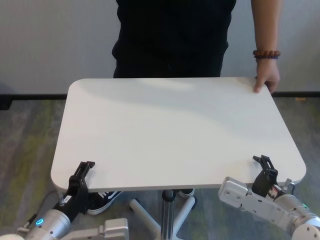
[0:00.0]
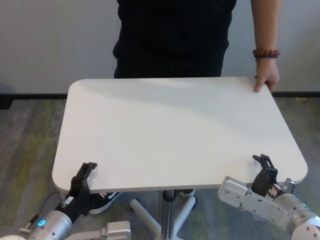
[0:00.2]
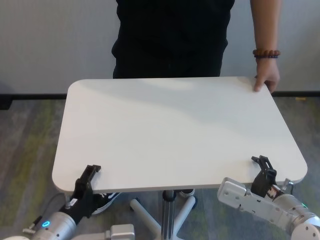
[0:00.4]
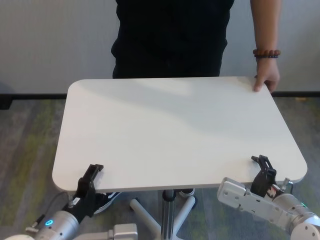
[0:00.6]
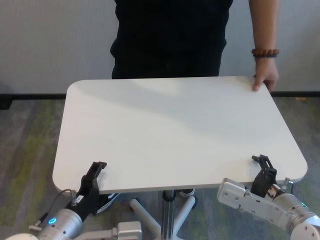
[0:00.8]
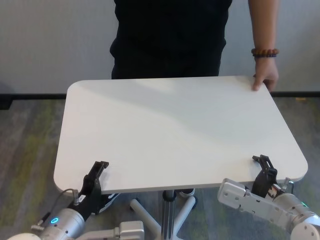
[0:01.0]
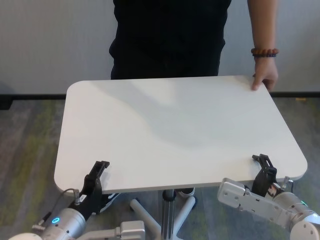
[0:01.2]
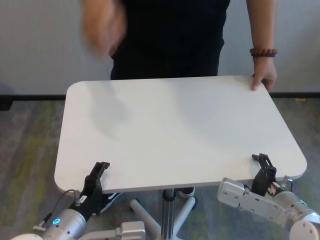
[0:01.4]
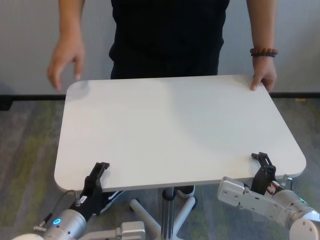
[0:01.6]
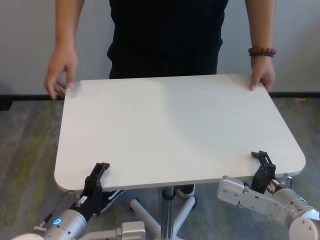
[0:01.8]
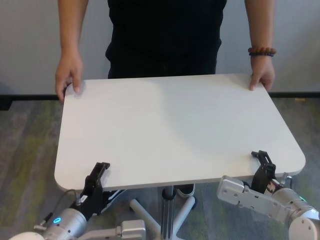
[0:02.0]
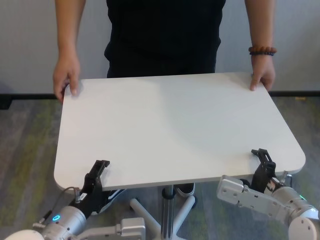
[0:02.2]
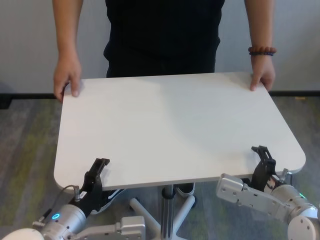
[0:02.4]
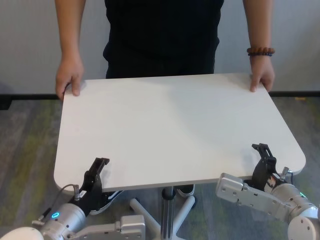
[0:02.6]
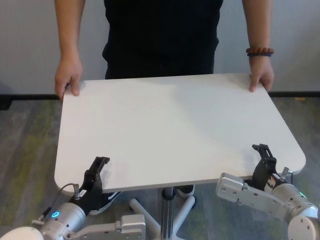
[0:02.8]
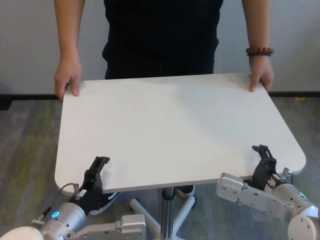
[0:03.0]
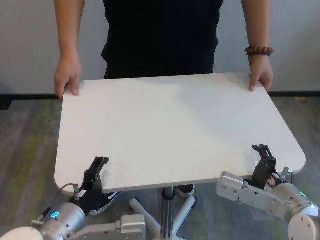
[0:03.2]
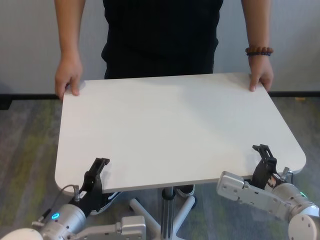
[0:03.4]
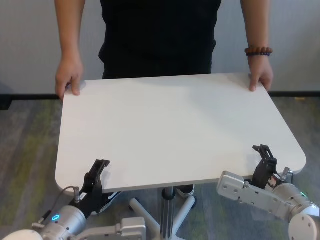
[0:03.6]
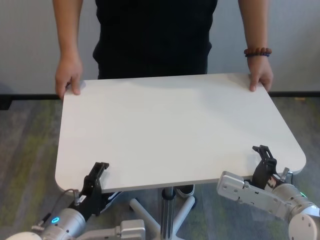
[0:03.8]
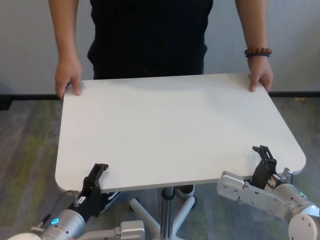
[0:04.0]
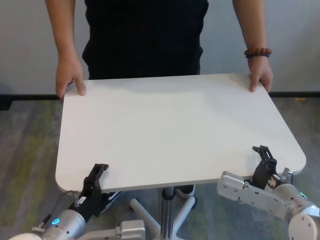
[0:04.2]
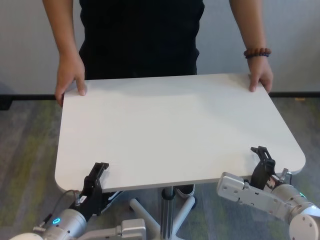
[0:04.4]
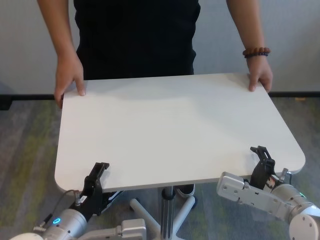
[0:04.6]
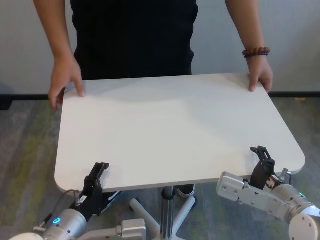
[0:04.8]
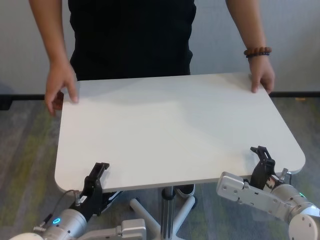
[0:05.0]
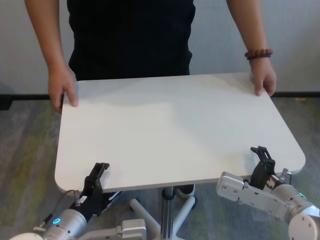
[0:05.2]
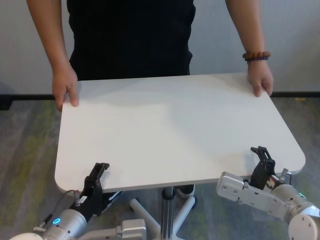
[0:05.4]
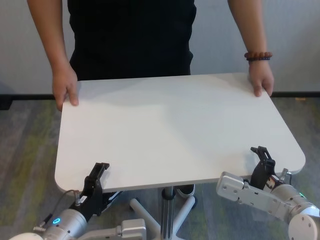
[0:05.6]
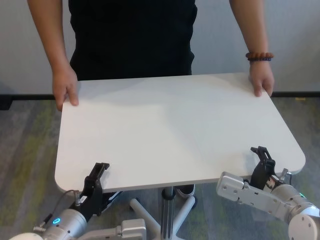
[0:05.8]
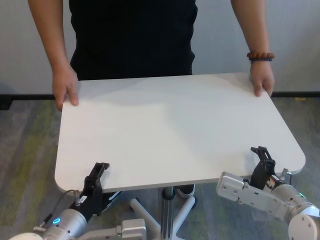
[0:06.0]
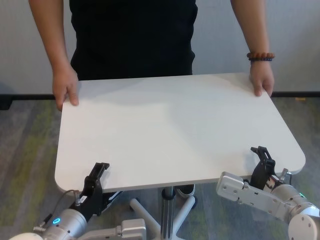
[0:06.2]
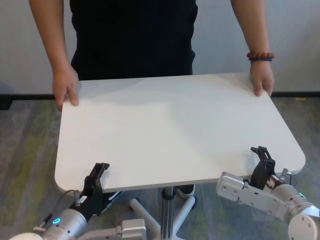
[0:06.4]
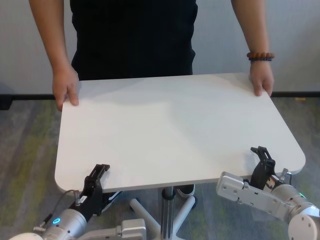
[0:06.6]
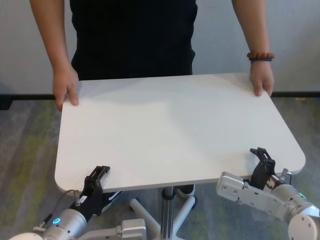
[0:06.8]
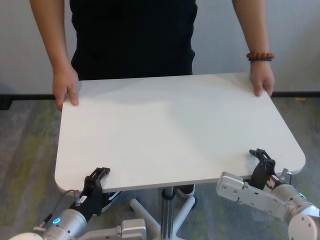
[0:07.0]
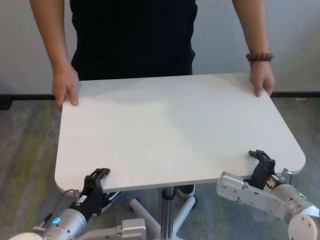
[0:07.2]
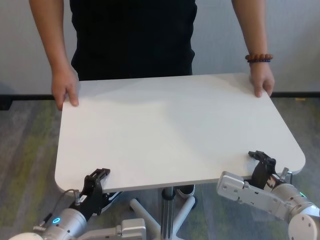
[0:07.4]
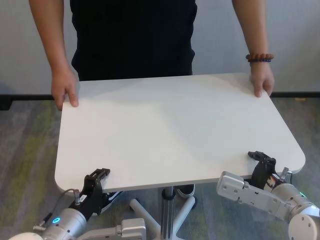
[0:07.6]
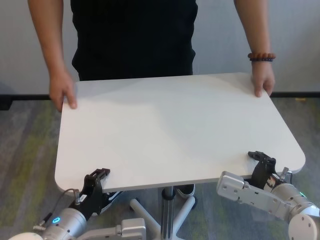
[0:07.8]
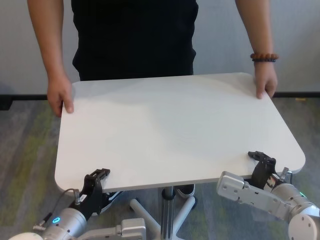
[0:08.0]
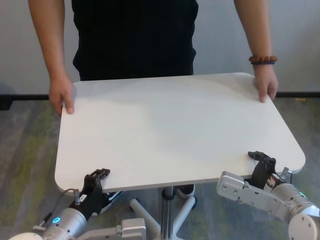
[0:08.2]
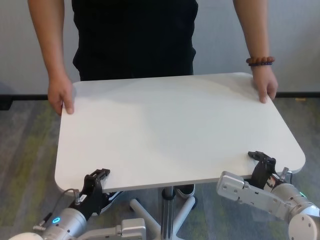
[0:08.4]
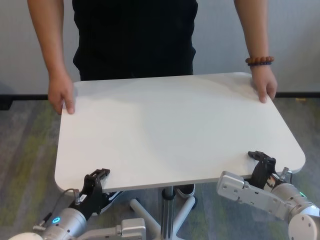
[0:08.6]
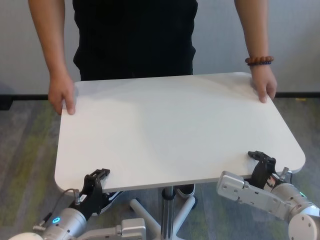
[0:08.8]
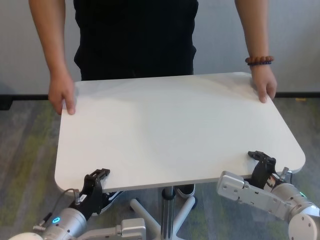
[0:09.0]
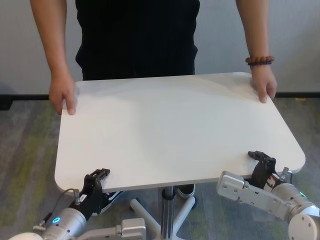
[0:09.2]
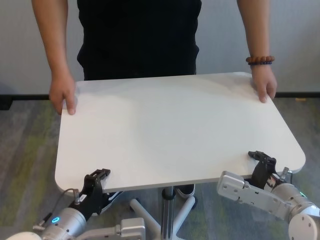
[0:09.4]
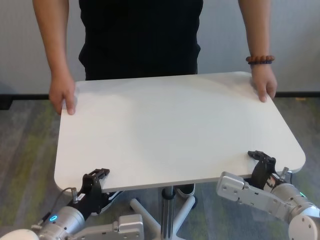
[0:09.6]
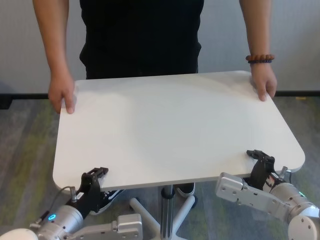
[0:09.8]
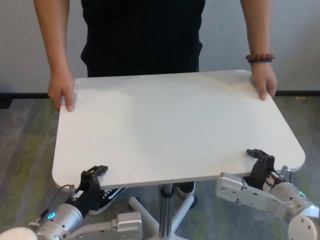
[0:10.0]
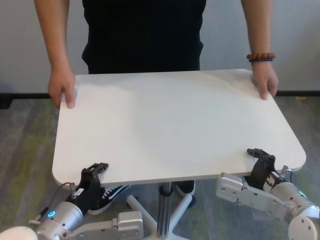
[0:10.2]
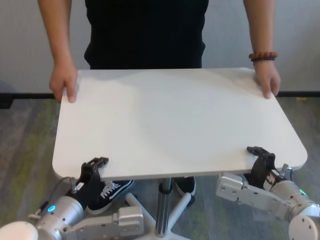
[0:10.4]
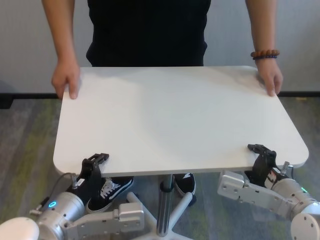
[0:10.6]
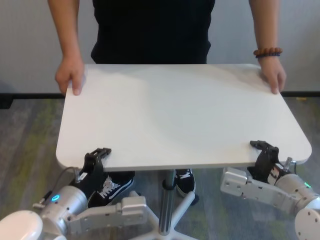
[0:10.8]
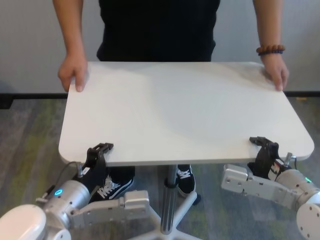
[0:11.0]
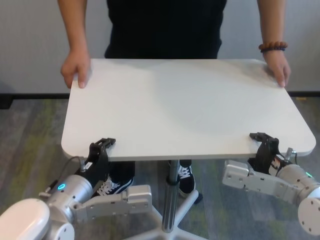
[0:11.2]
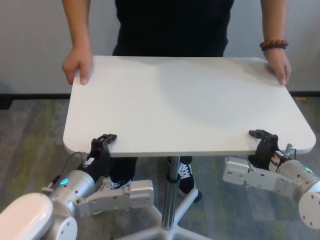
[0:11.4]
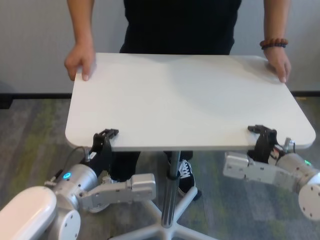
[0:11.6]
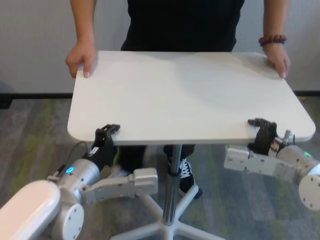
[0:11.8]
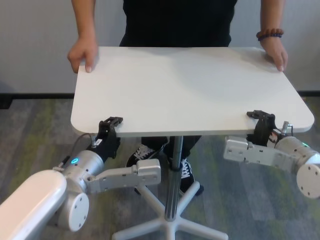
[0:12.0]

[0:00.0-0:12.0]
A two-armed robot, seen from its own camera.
Task of the whole recording: human machine collaborative table moving.
Step, 0:00.0 to 0:07.6: Grasp the table with both grippers.

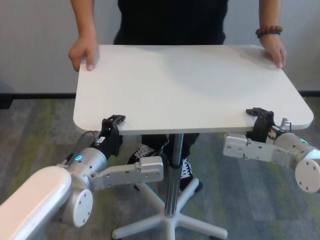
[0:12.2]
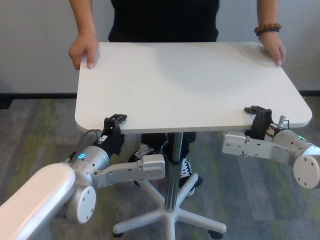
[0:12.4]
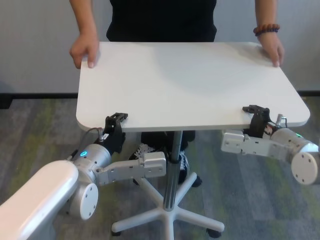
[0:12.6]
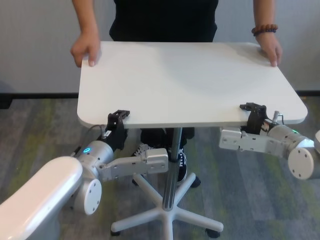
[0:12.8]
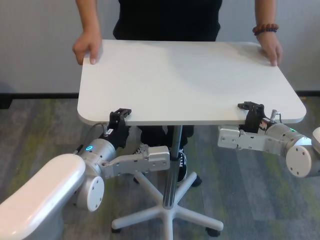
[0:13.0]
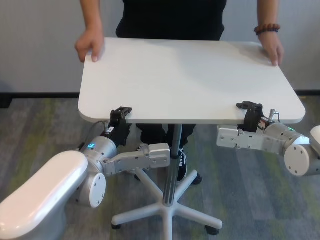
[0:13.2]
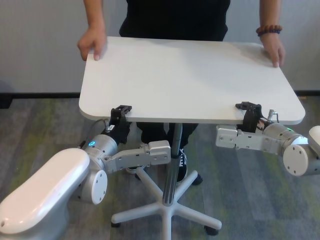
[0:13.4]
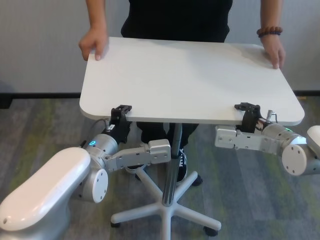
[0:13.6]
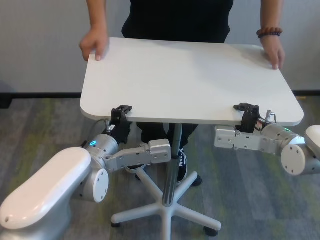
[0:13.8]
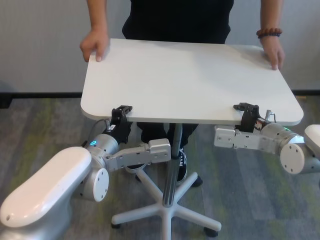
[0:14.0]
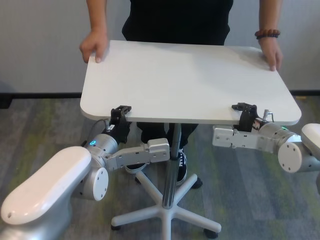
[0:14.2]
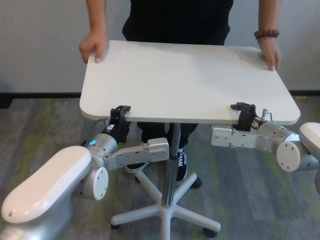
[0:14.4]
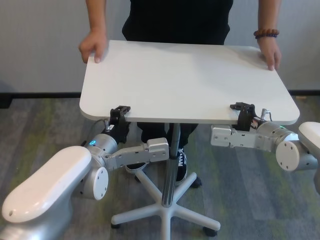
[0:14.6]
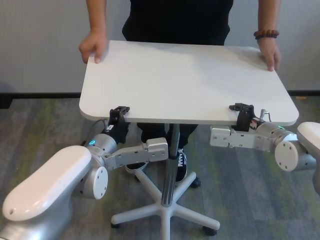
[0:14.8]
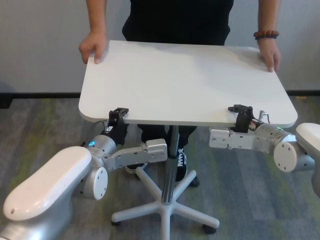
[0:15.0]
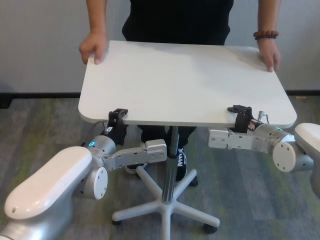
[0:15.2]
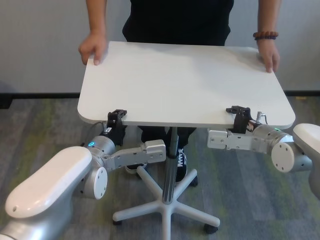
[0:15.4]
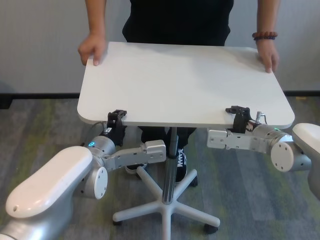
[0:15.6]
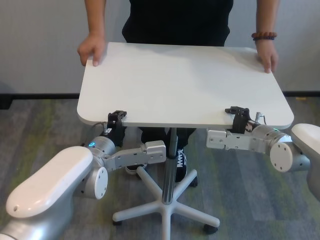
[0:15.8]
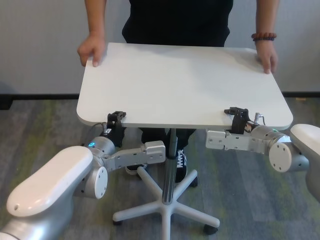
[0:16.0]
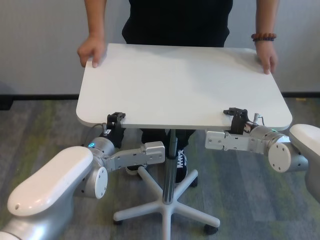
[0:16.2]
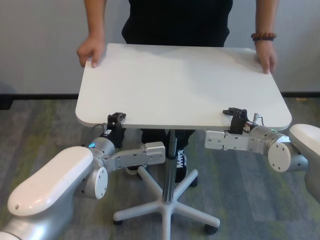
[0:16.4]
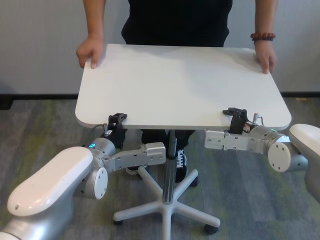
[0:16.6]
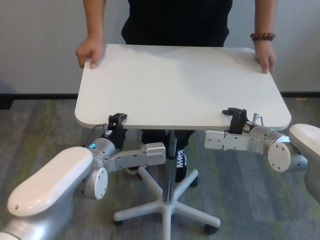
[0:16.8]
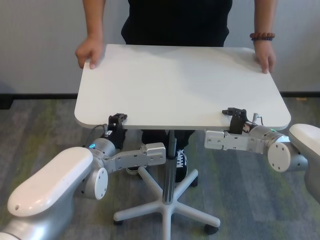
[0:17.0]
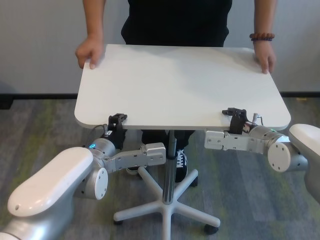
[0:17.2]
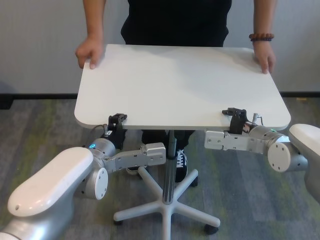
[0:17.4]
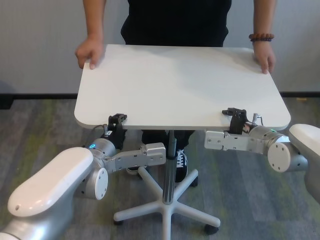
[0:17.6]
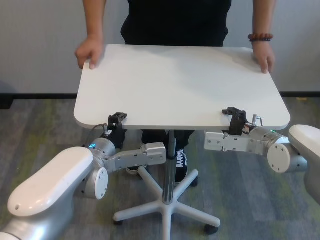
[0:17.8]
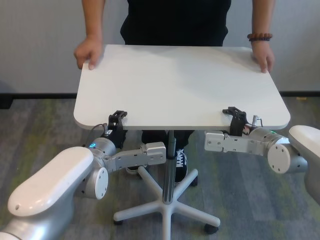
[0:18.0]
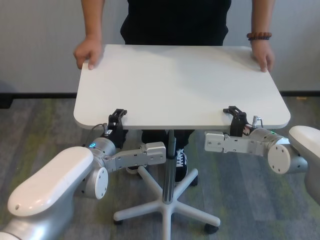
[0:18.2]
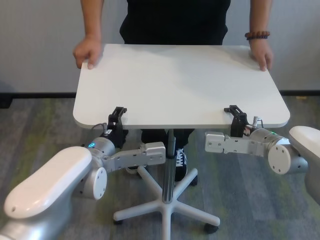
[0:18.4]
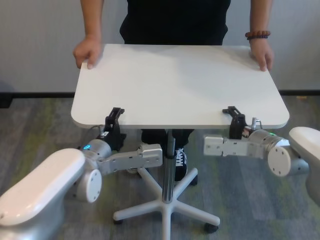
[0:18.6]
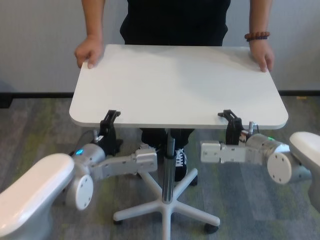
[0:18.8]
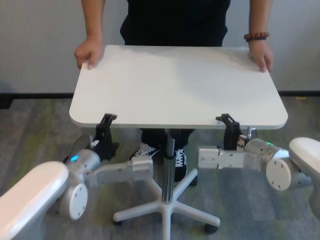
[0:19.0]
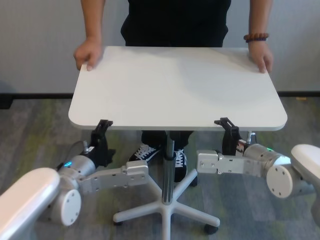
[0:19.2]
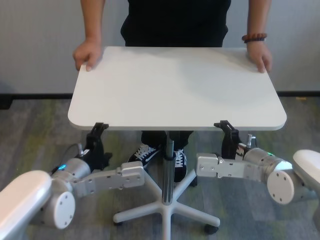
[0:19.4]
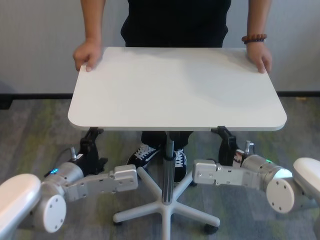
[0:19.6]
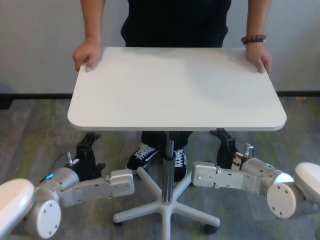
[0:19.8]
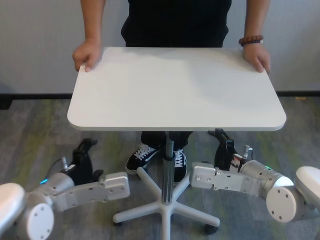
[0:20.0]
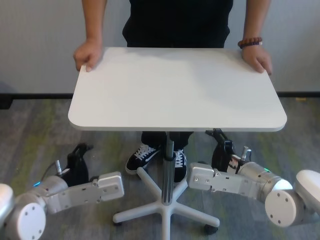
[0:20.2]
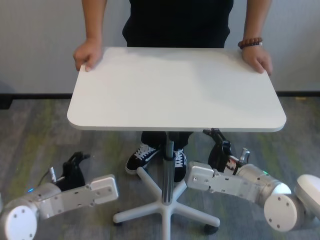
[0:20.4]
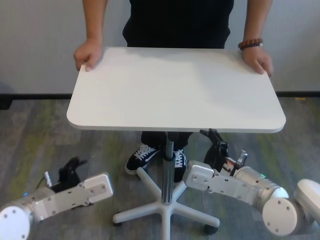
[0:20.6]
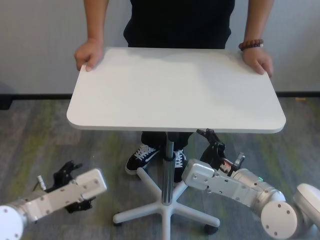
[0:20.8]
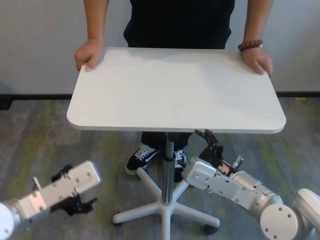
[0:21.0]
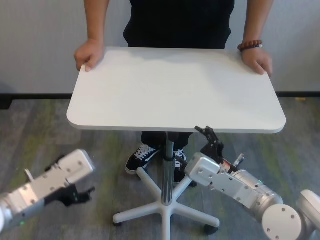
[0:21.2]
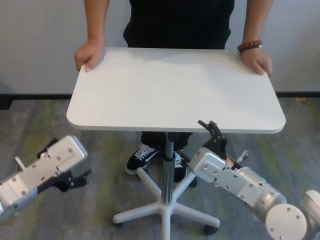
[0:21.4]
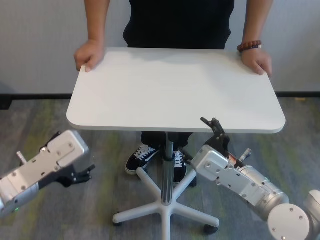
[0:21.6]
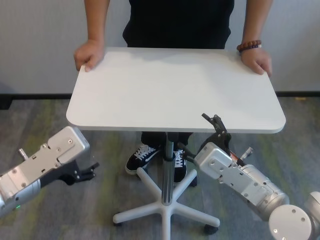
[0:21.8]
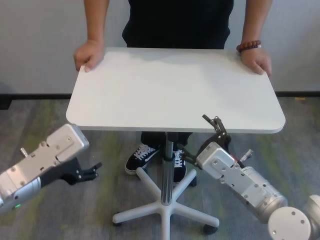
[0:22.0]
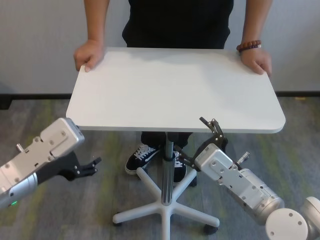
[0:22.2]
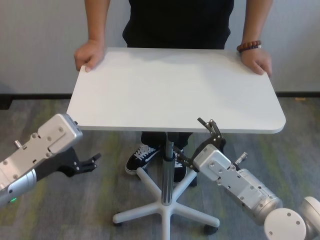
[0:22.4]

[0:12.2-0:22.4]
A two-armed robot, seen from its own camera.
Task of the whole recording: human machine collaborative table moving.
Step, 0:12.2 to 0:18.4: Move the table forward with both grippers.
